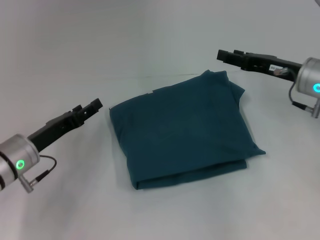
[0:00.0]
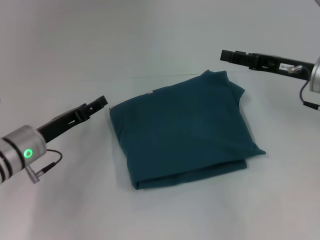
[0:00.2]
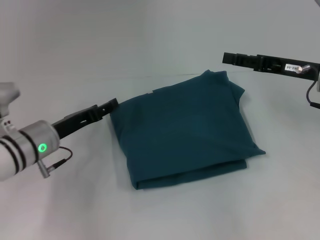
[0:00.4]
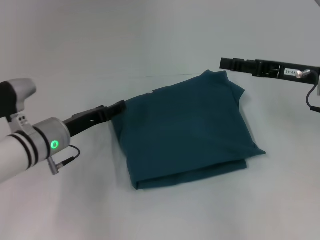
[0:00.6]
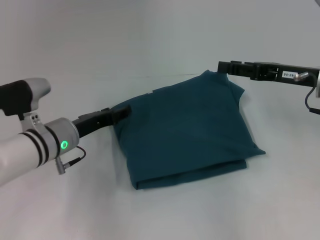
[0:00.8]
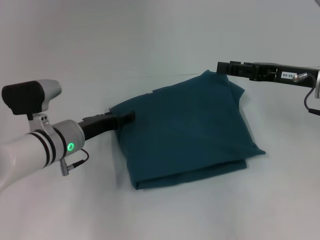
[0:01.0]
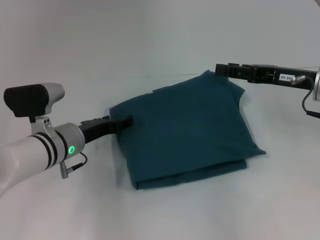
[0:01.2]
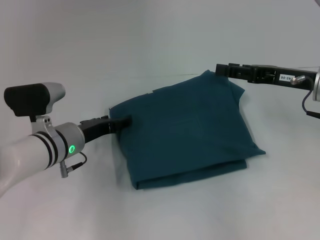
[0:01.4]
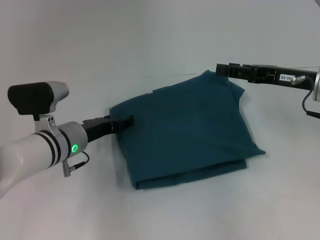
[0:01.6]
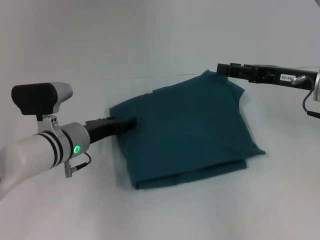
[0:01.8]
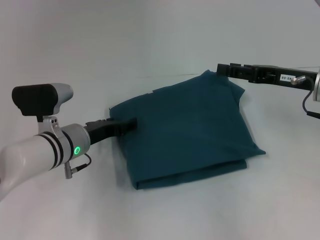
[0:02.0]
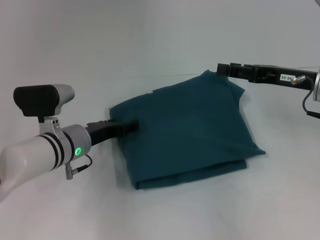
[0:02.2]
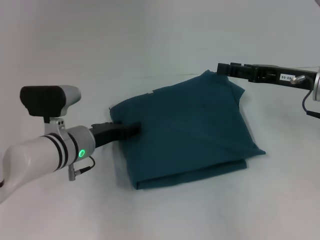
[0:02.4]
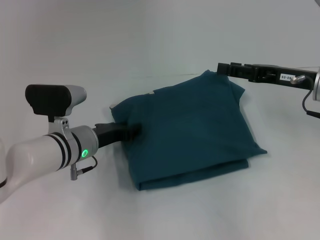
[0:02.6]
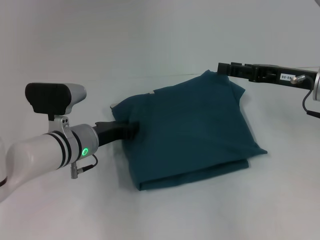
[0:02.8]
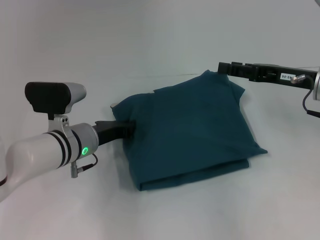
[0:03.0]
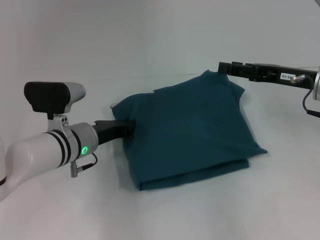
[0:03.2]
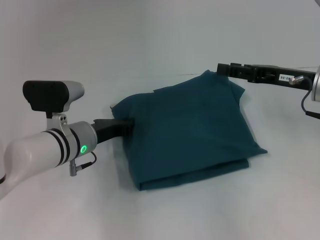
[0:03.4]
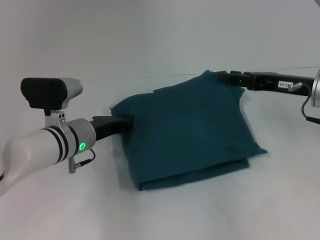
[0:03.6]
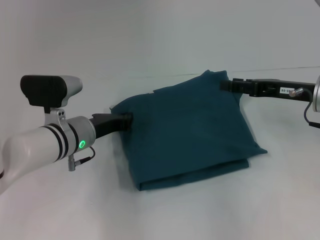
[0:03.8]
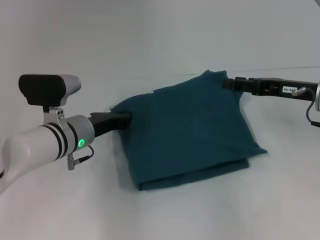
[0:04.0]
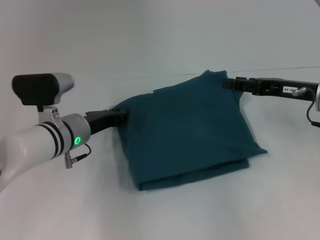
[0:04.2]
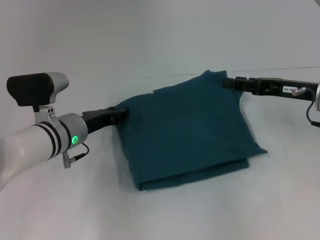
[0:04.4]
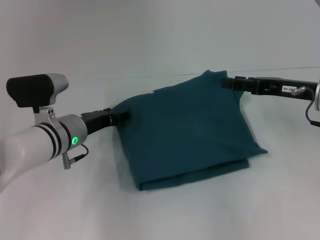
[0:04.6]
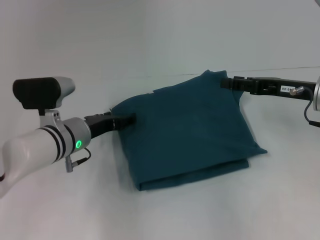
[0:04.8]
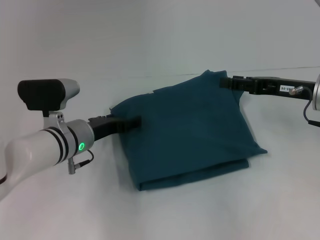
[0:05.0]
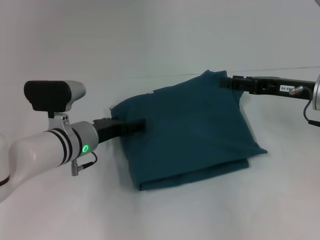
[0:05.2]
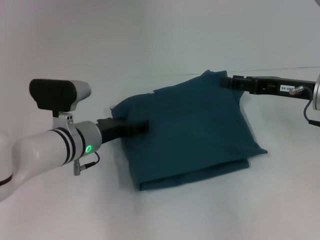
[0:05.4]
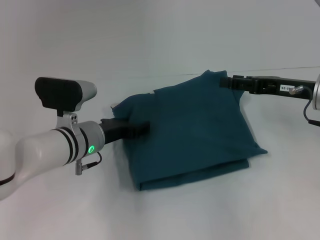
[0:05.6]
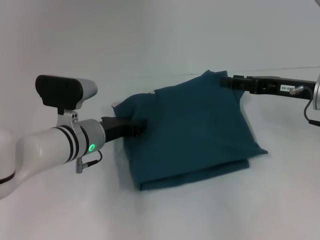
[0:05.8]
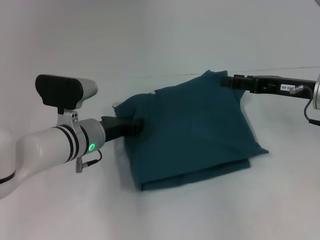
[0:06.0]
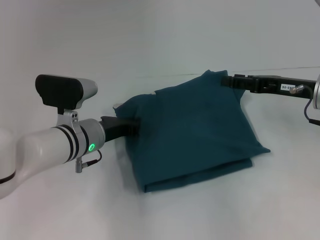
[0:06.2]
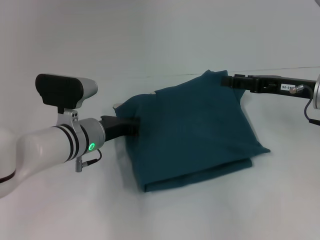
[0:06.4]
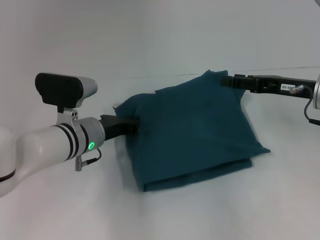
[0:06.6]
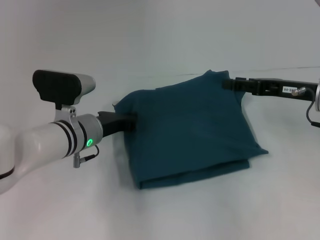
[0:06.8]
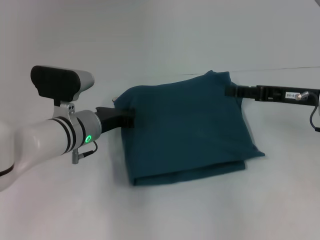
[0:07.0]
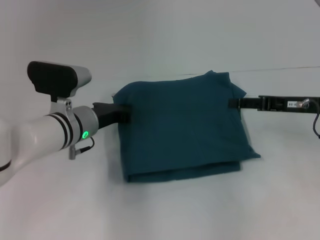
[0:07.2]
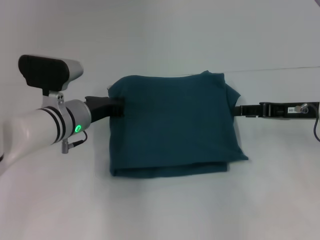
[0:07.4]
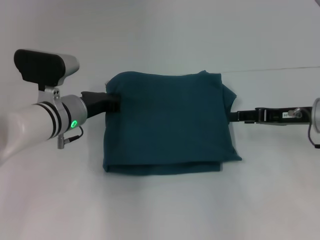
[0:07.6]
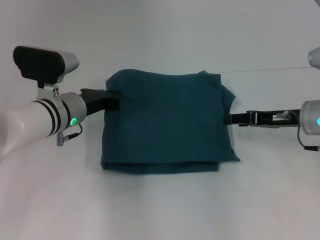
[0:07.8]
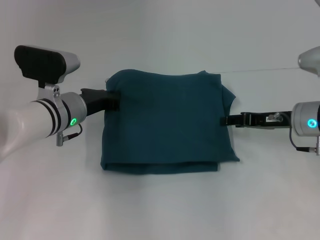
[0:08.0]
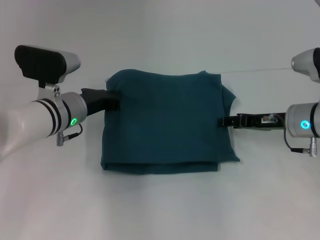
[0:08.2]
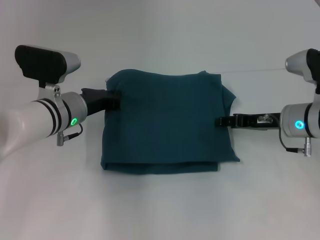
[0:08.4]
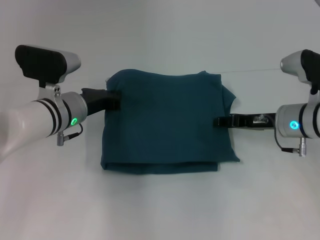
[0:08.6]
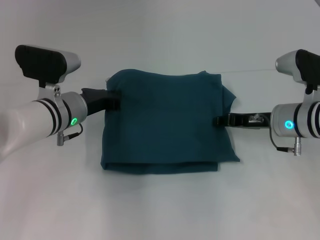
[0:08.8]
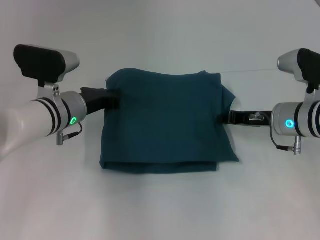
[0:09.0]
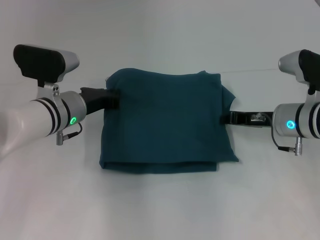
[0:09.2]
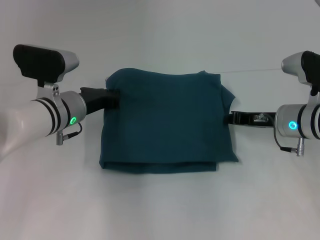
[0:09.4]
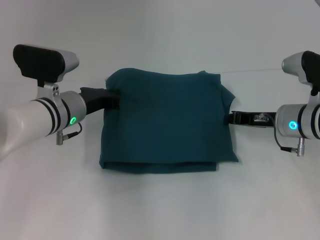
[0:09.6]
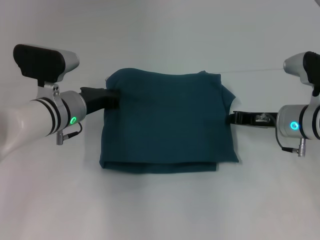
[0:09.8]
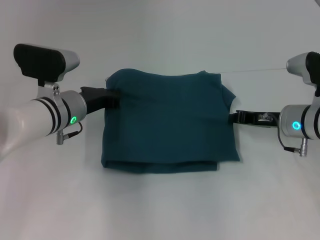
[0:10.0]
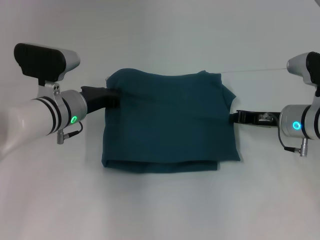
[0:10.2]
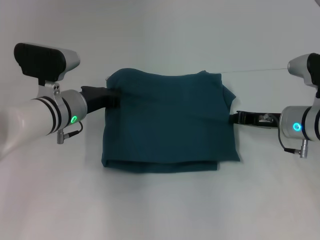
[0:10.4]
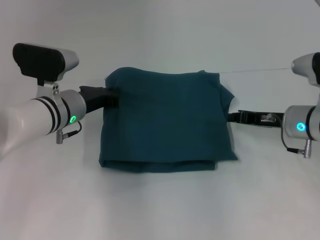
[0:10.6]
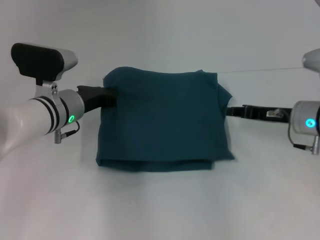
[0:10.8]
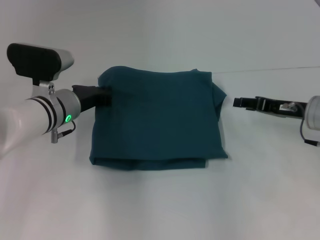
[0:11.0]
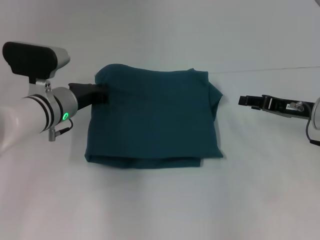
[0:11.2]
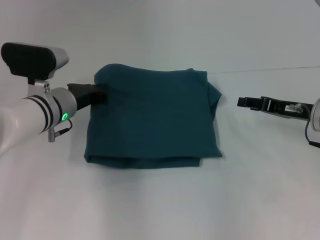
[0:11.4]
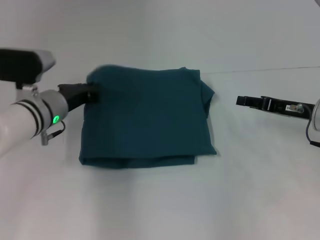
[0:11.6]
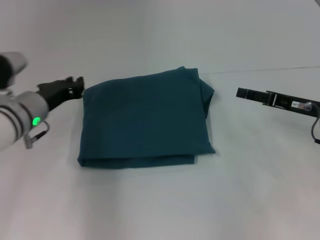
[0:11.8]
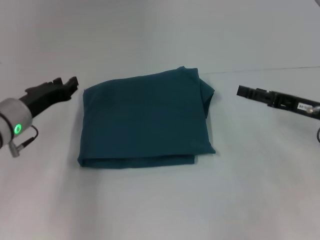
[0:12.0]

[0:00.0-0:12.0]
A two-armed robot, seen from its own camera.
0:00.0 to 0:01.6: The left gripper goes about 5 cm to the right.
0:01.6 to 0:03.0: The left gripper closes.
0:03.0 to 0:04.4: There are only small adjustments of the grippers.
0:04.4 to 0:06.0: The left gripper opens, then closes again.
0:06.0 to 0:07.6: The left gripper closes its fingers.
0:07.6 to 0:09.0: The right gripper moves some 5 cm, and closes its fingers.
0:09.0 to 0:10.4: The grippers stay close to where they were, moving slightly.
0:10.4 to 0:12.0: The right gripper goes about 5 cm to the right, and opens up. Meanwhile the left gripper shifts approximately 10 cm to the left.

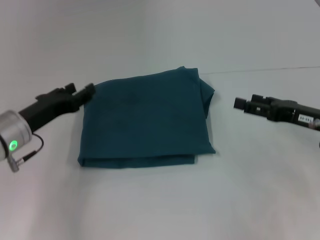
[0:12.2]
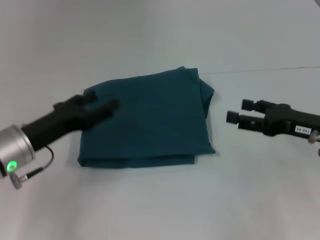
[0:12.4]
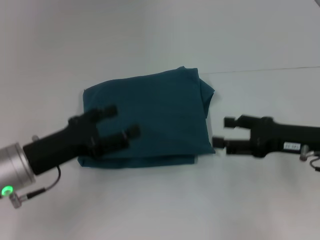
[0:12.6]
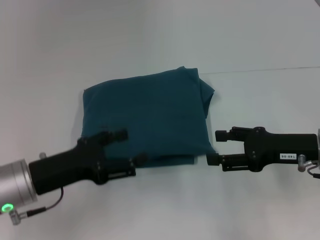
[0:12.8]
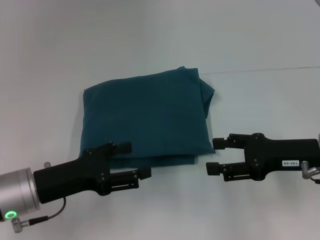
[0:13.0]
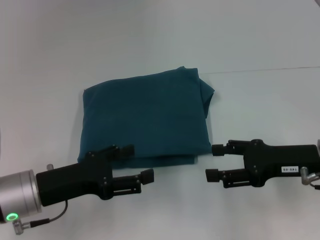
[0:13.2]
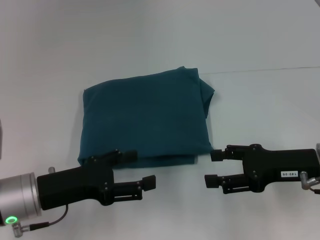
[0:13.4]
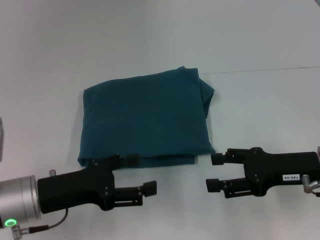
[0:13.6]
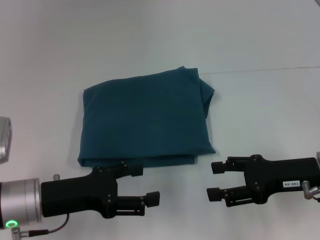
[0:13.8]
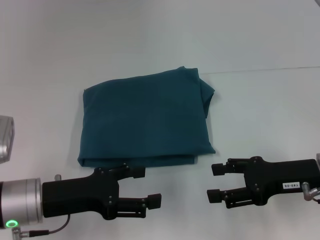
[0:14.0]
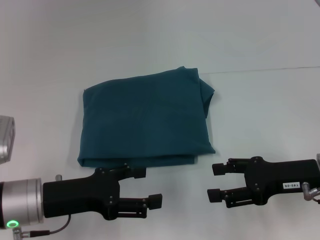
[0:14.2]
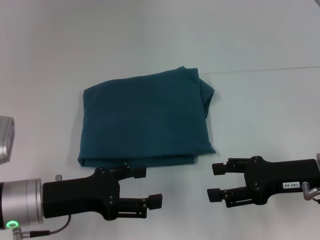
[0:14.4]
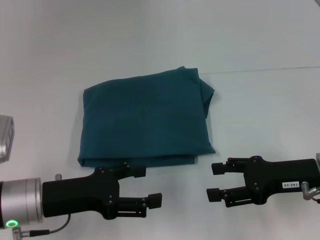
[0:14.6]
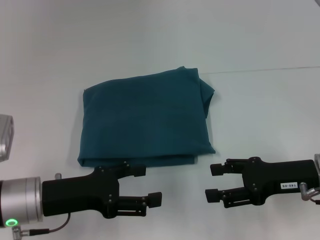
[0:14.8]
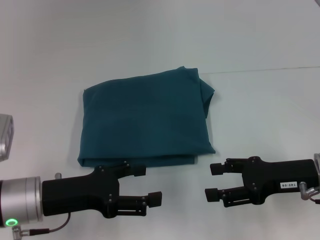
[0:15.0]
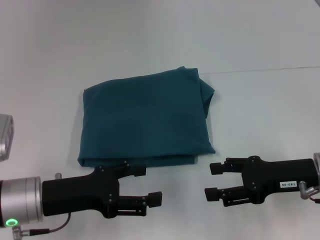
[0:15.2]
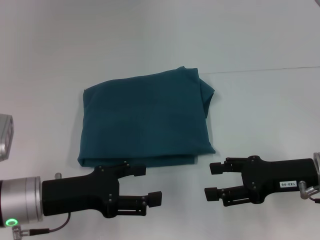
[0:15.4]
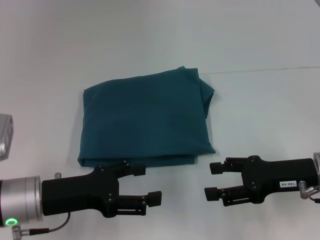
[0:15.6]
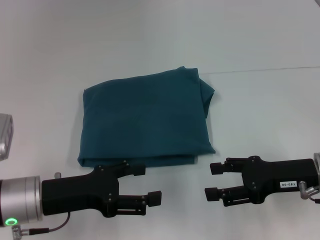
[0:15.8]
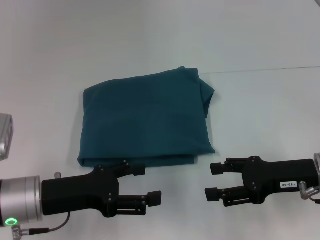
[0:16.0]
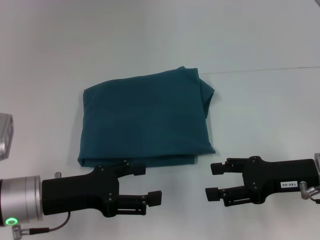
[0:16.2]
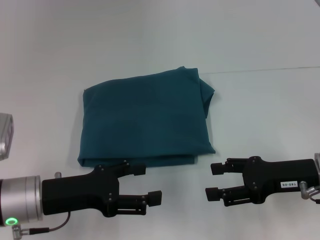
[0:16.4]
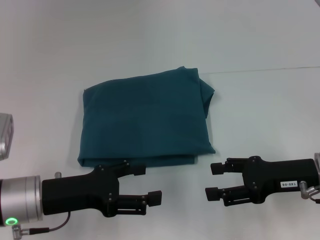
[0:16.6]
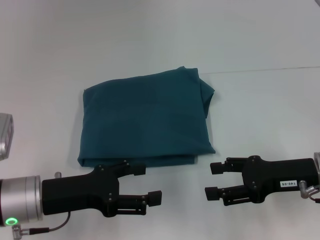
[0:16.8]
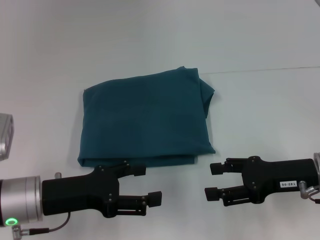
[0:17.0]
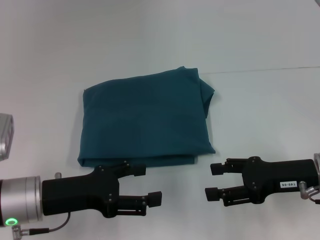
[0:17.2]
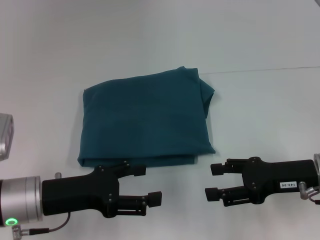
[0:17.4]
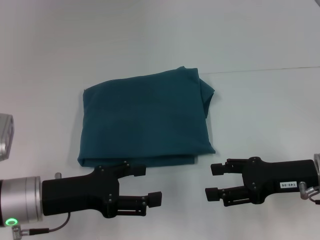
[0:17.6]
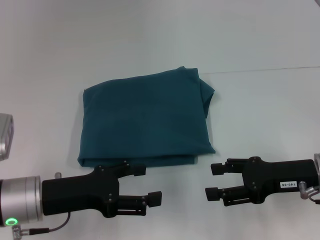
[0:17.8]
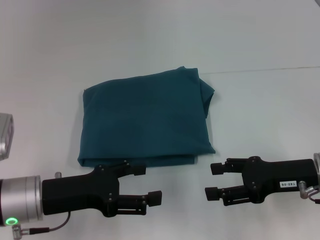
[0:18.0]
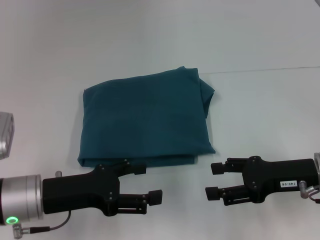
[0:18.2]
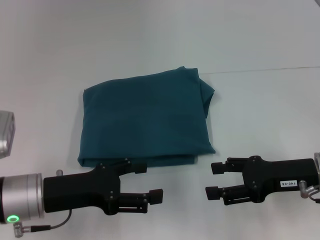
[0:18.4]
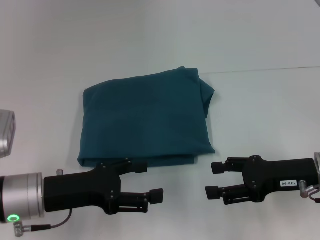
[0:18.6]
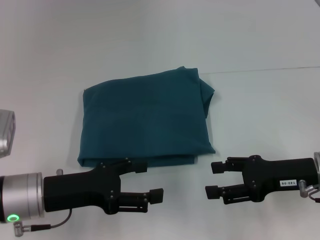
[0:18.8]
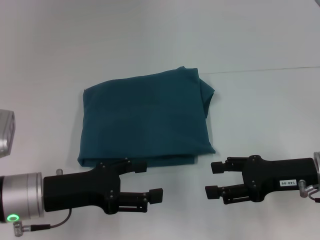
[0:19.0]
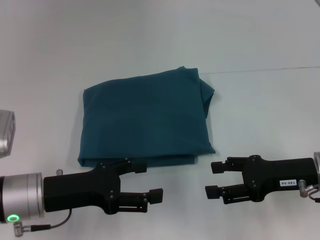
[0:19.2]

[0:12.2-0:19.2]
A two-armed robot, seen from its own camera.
0:12.2 to 0:13.6: The right gripper changes place by roughly 5 cm, while the left gripper travels backward by approximately 10 cm, and opens.
0:13.6 to 0:15.0: The grippers stay close to where they were, moving slightly.
0:15.0 to 0:19.2: The two grippers keep their place.

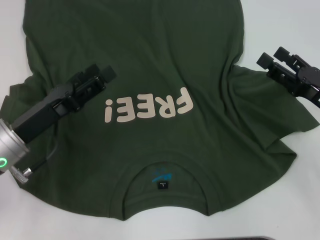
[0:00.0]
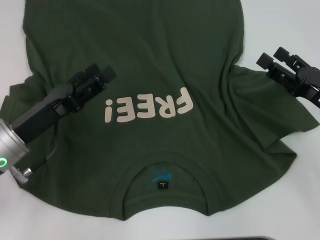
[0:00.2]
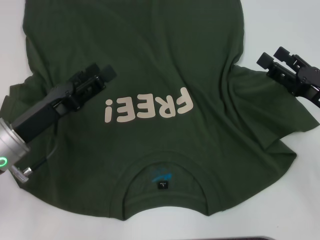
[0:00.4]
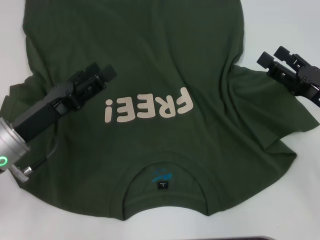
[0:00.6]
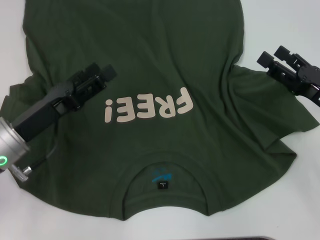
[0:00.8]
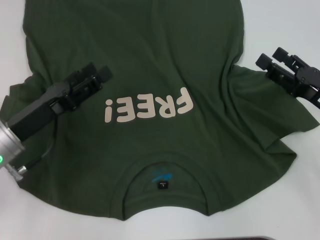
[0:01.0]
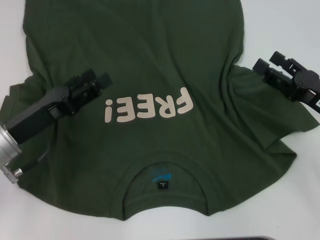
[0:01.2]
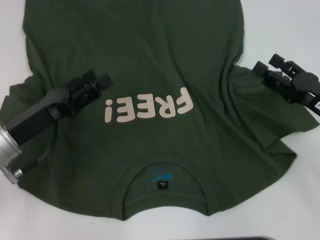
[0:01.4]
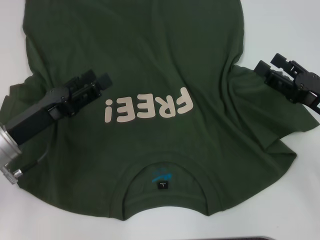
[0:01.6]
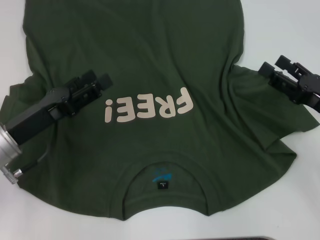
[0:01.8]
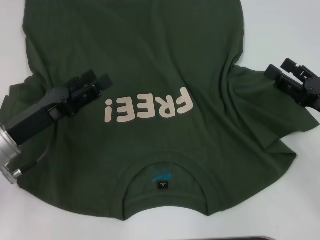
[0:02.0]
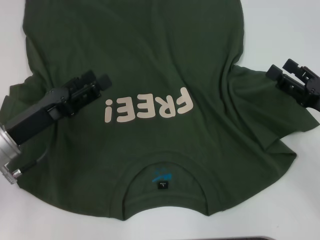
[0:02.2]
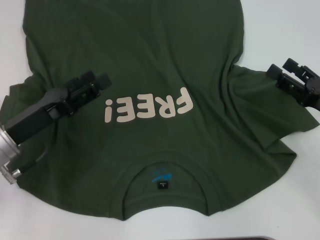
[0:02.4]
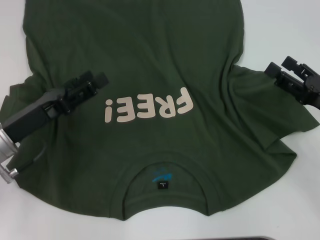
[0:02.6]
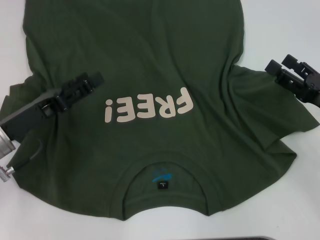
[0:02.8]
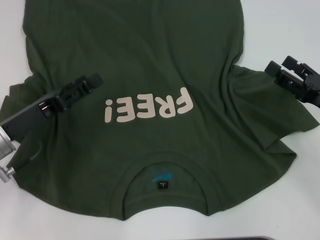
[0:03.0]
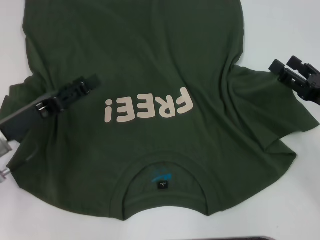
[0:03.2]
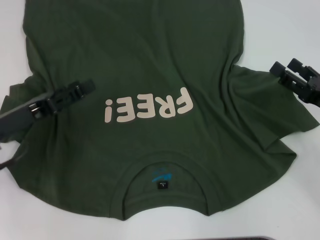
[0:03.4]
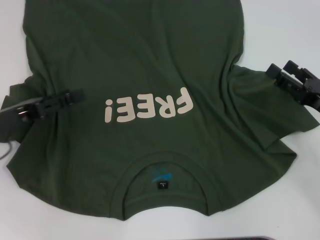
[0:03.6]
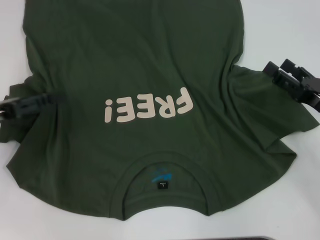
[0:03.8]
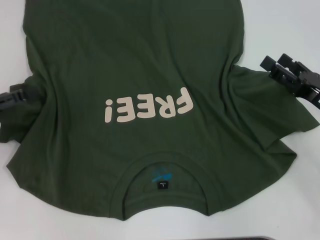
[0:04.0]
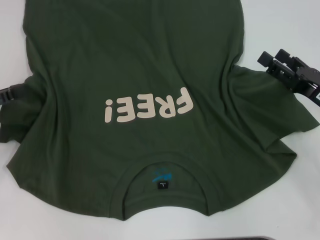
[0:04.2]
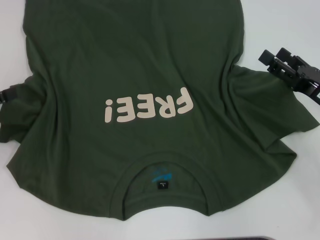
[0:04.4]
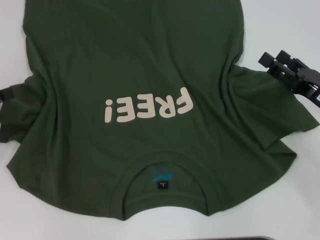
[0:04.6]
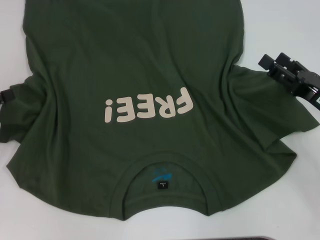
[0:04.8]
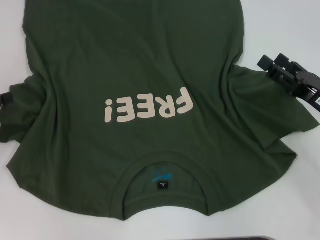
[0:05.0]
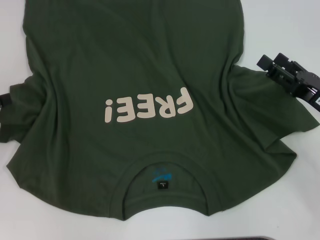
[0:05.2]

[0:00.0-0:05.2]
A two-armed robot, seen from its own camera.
0:00.0 to 0:01.8: The two grippers keep their place.
0:01.8 to 0:03.4: The grippers stay close to where they were, moving slightly.
0:03.4 to 0:05.2: The left gripper travels to the left by about 10 cm.
